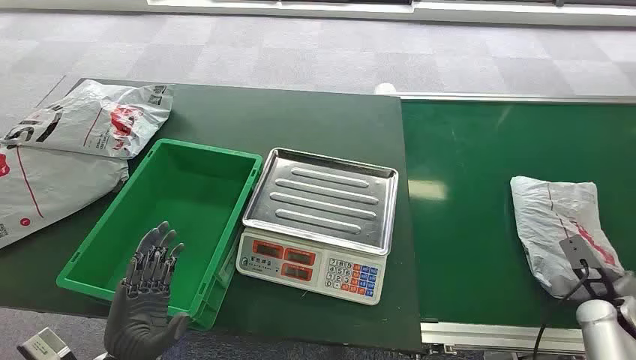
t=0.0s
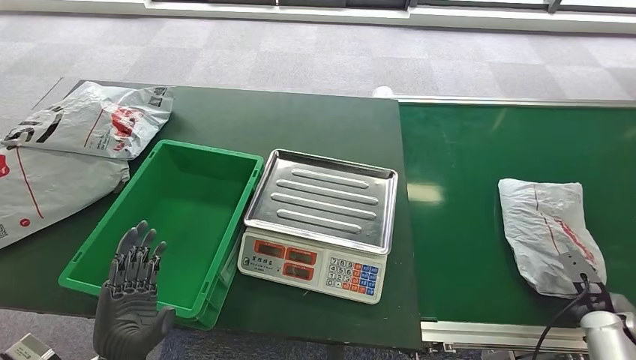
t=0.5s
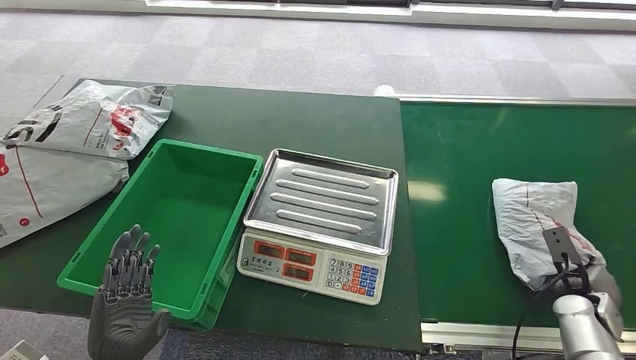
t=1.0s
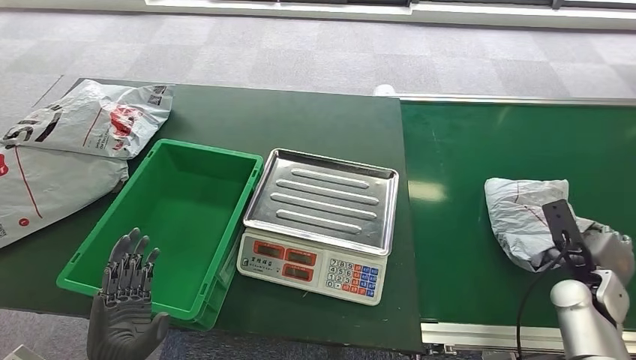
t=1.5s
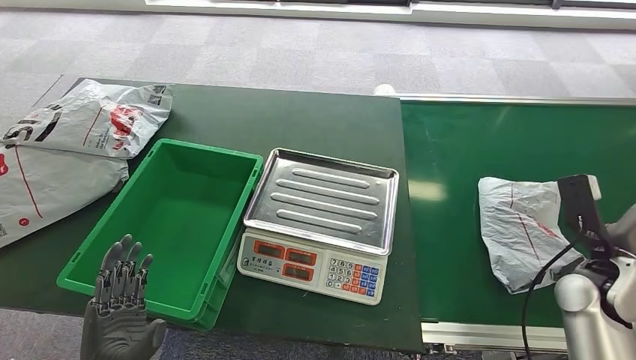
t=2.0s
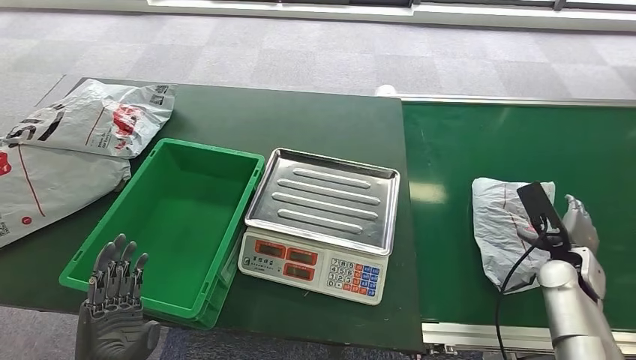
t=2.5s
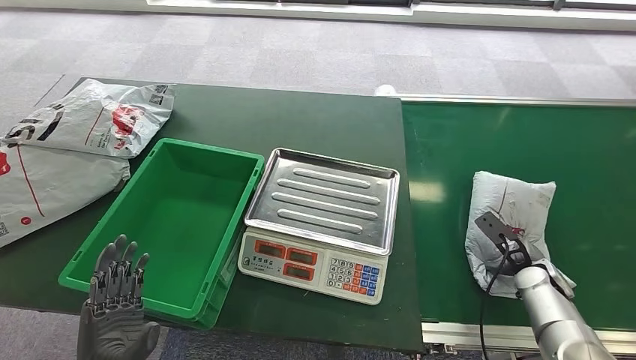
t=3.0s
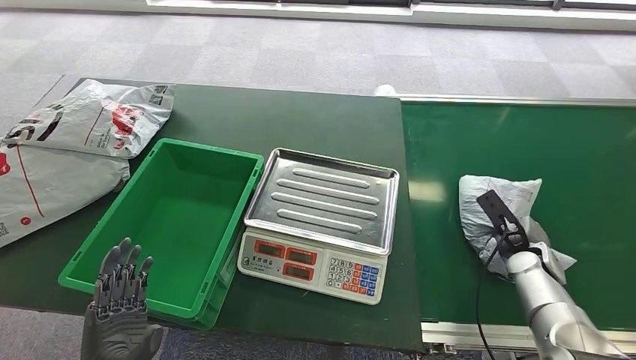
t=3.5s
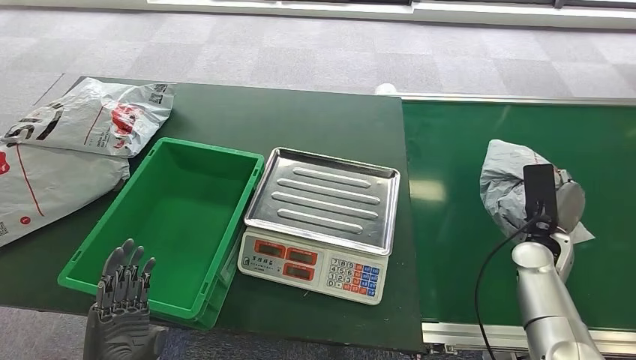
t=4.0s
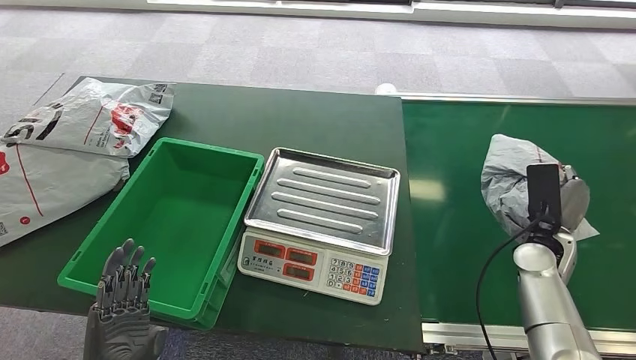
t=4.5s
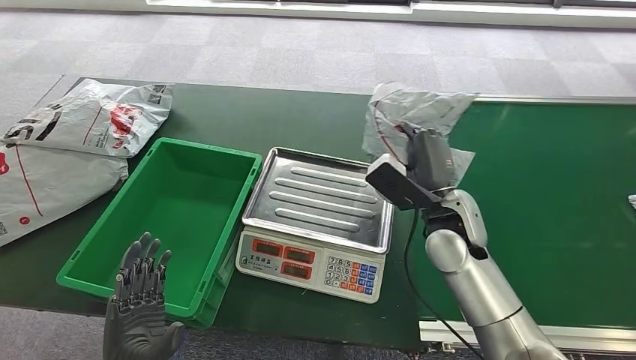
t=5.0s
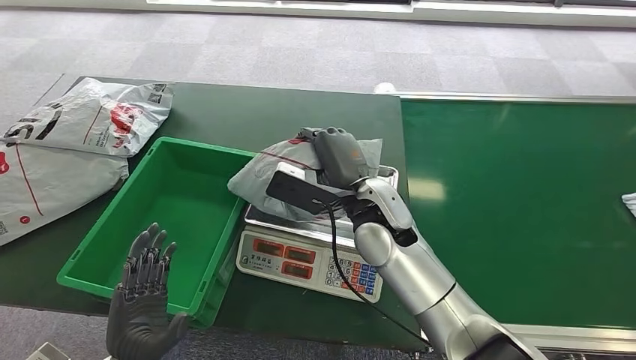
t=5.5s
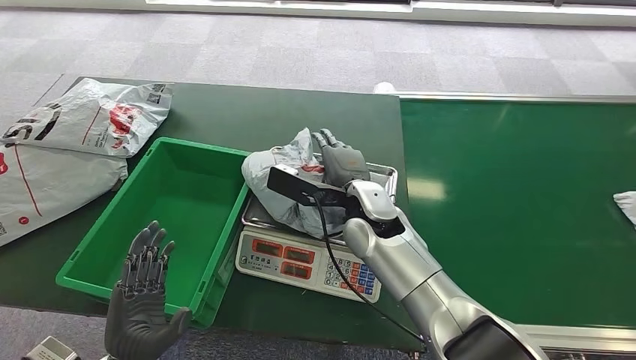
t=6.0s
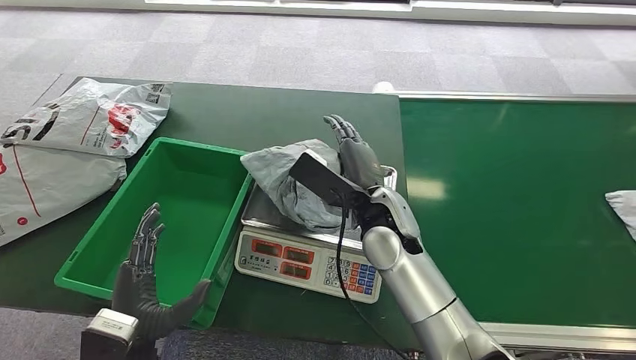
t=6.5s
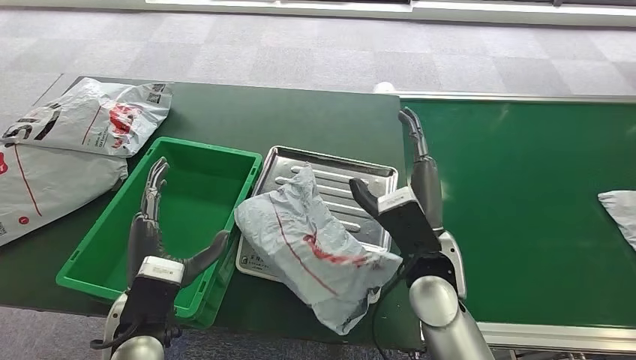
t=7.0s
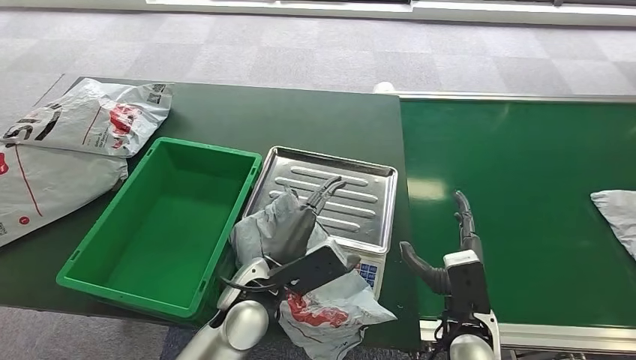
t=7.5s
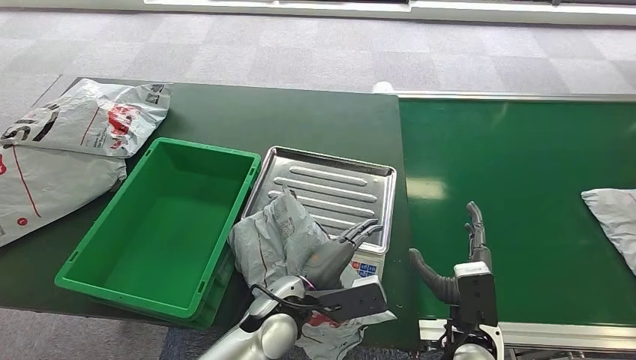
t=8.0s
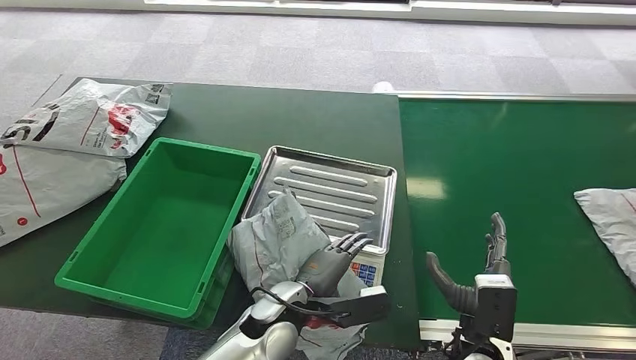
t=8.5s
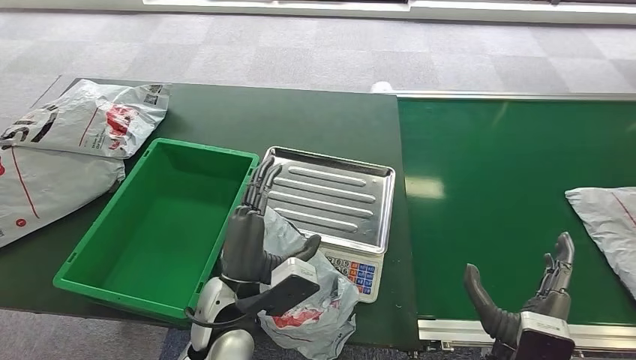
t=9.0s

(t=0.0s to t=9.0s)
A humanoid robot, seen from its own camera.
Task of the whole recording: Weigh the package on the weighing device and place it in the left basket.
Step, t=0.0s - t=4.5s: Pick up the package from the conveyor belt.
Step, t=5.0s - t=5.5s: Place the package onto the inbound machine.
t=2.0s - t=4.5s: The right hand is displaced forward by some 5 cm, and reaches about 10 cm downward, then returns.

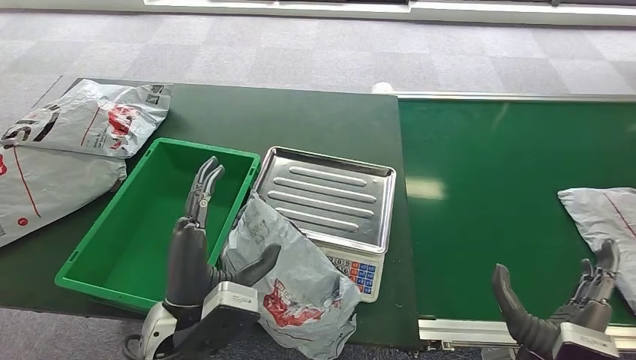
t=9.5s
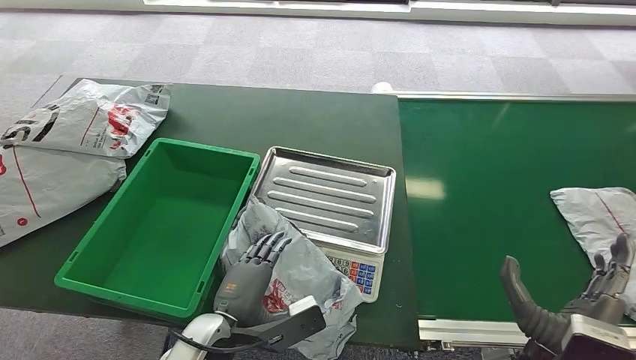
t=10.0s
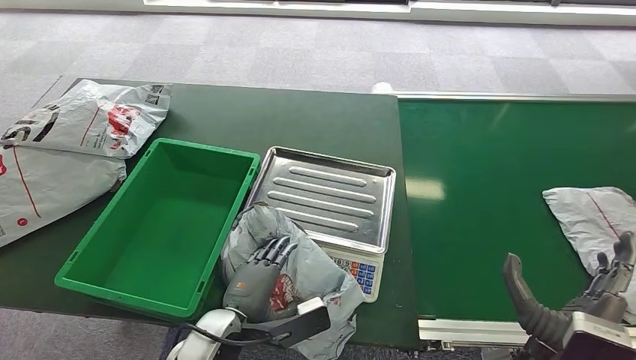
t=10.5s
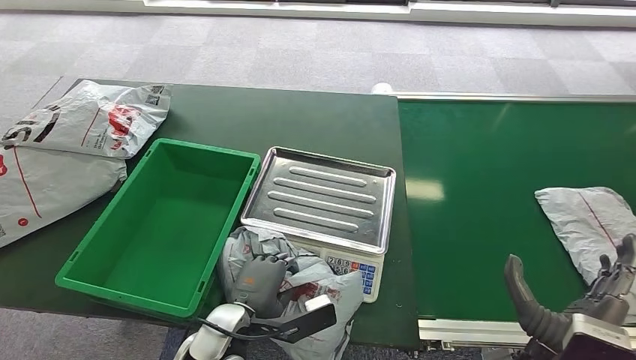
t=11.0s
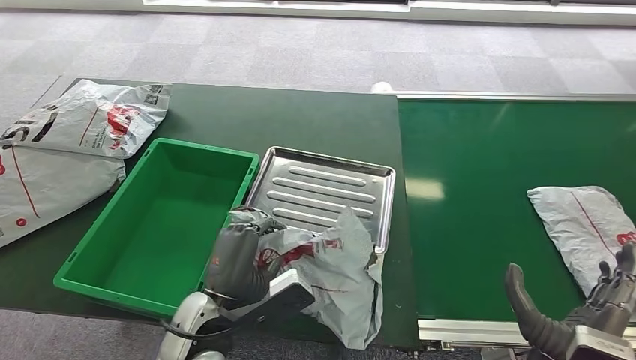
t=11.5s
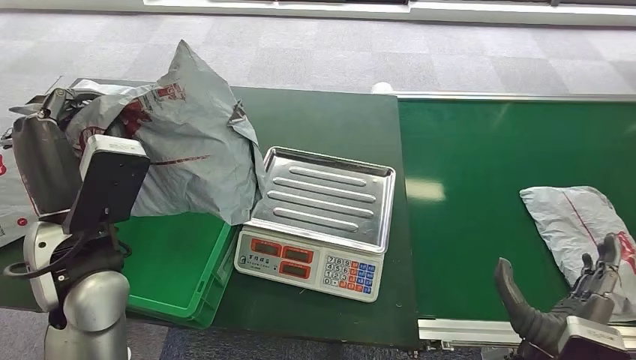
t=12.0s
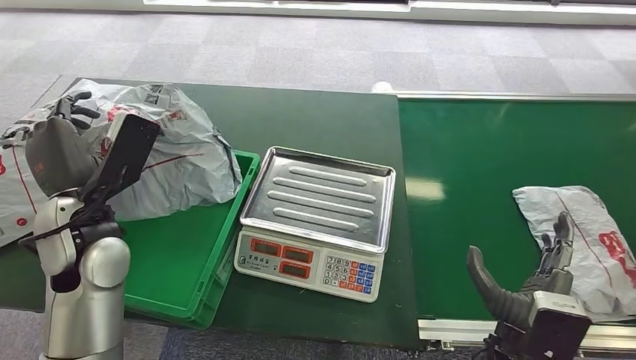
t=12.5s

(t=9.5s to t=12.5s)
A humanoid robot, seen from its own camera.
Task of the whole recording: Weigh the package on the weighing device and place it in the left basket.
Step, t=12.0s - t=12.5s: Place the package into the parcel locker.
t=9.5s - t=11.0s: The left hand goes roughly 10 cm downward.
